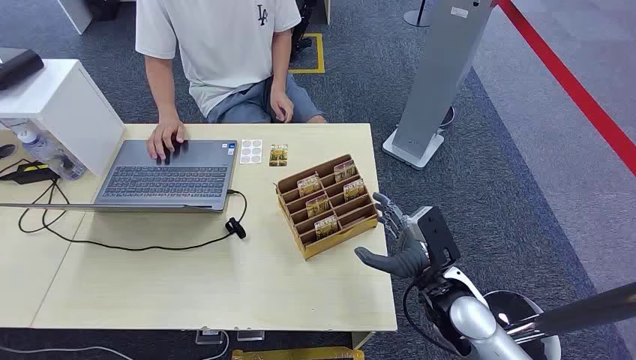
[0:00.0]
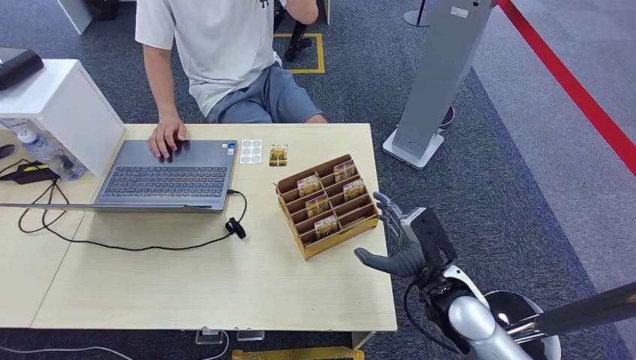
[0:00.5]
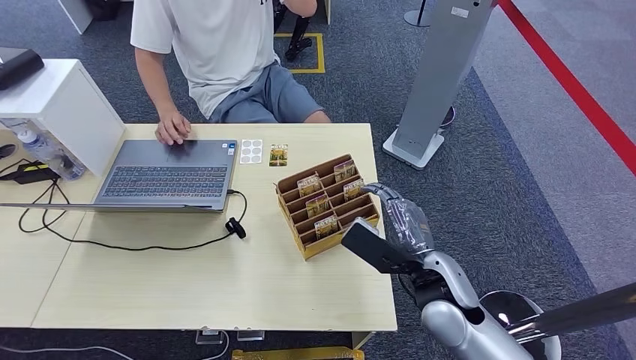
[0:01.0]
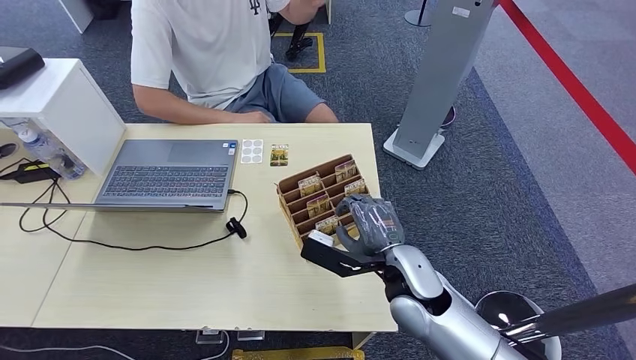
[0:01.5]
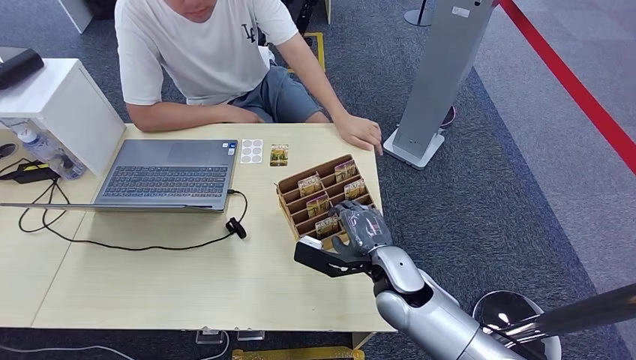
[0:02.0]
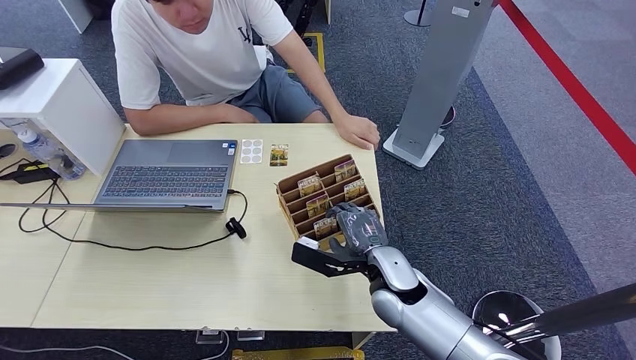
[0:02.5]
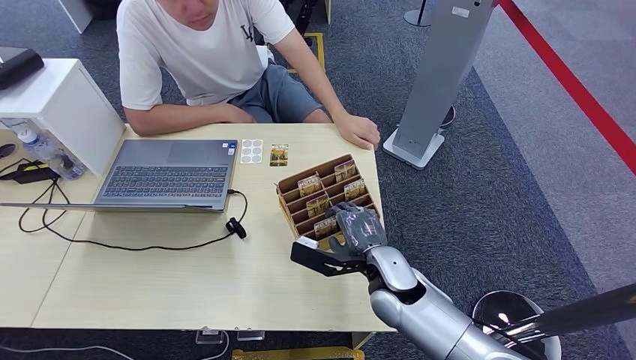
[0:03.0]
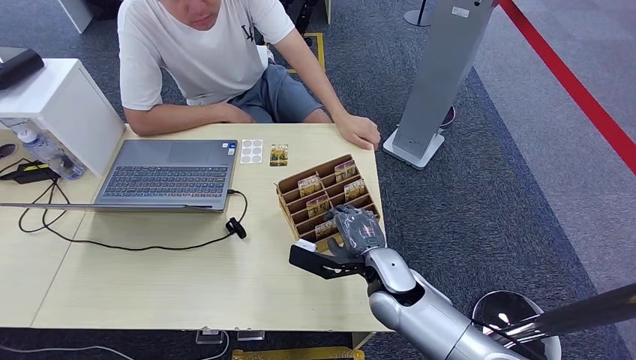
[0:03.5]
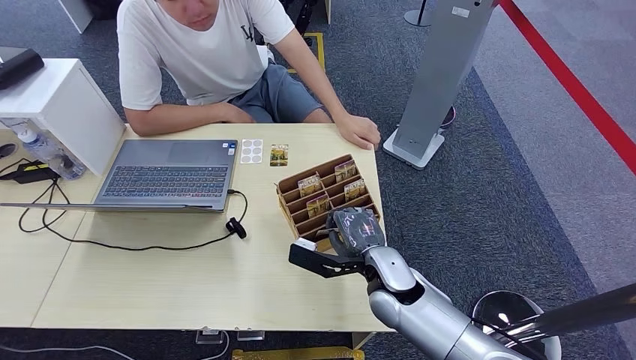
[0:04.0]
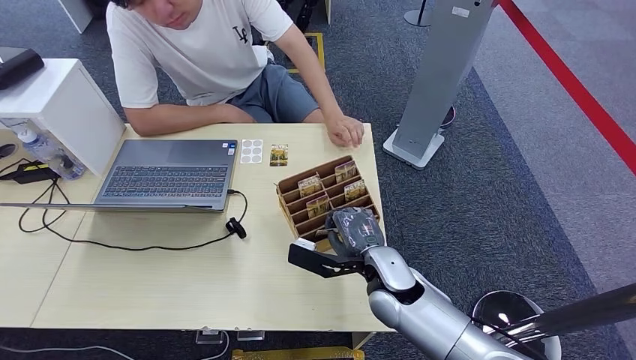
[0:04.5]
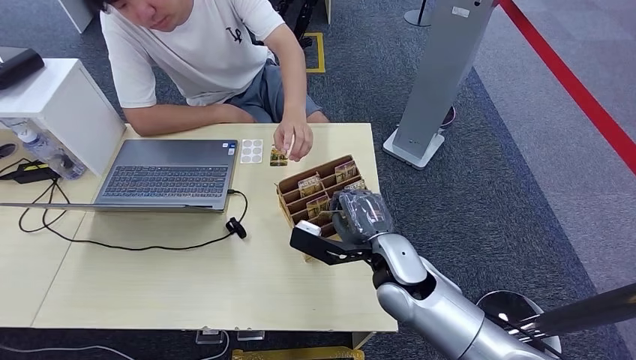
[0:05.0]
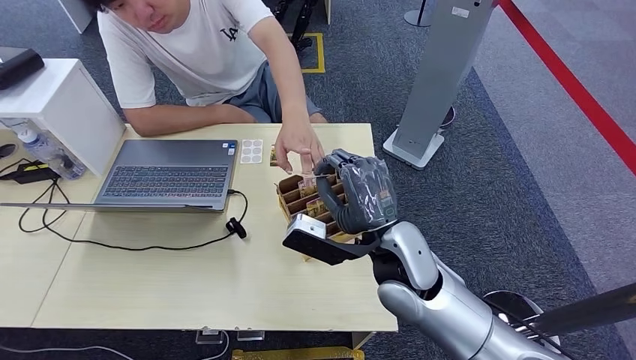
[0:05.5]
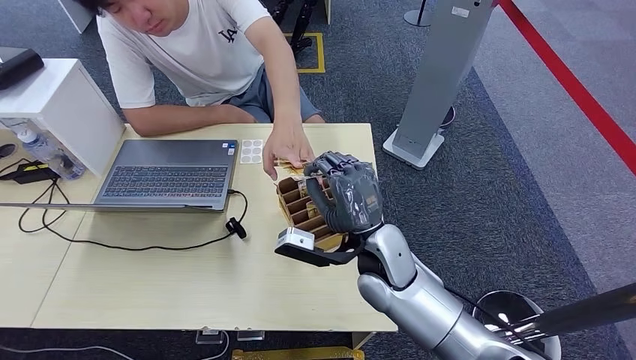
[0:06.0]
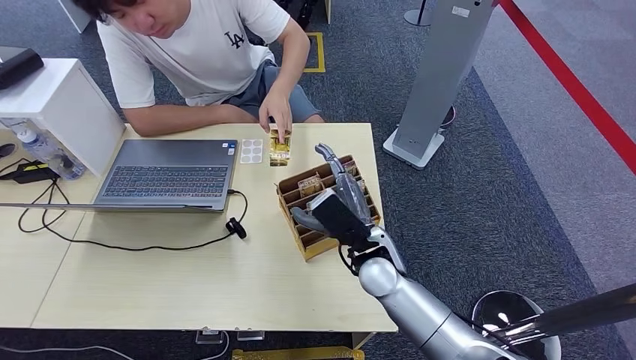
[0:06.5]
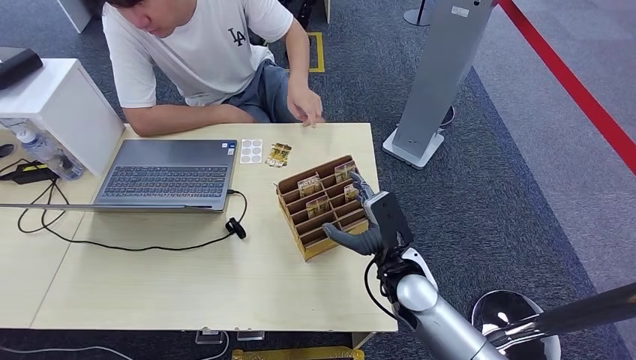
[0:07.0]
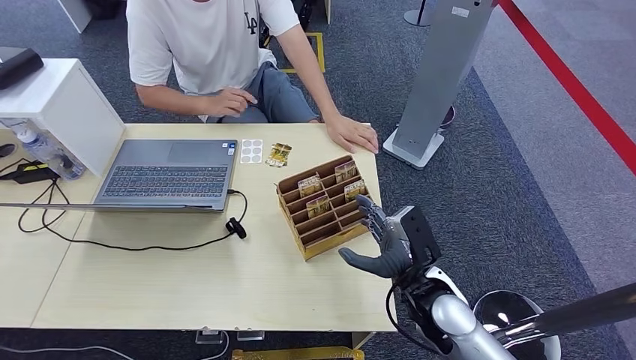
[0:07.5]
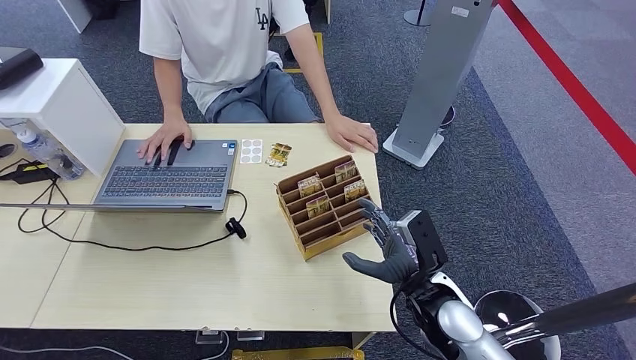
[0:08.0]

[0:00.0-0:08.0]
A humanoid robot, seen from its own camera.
Step, 0:00.0 to 0:05.0: Pick up the room card from the card holder.
Step, 0:05.5 to 0:08.0: Hand the room card to the target.
0:02.0 to 0:04.0: The hands make only small movements.
0:04.0 to 0:06.0: The right hand is displaced upward by roughly 5 cm.

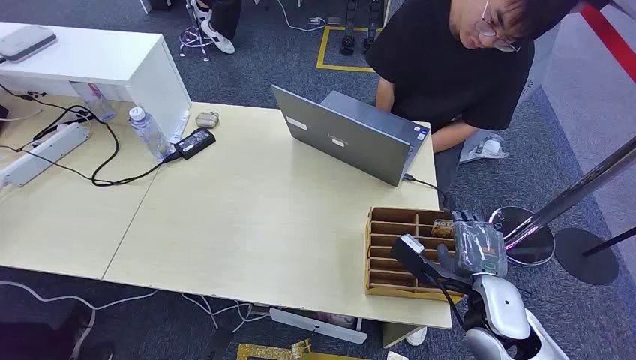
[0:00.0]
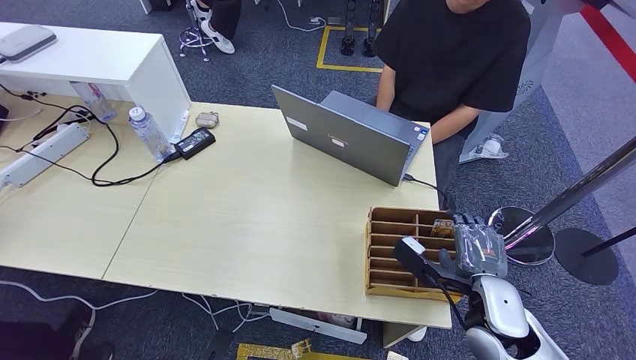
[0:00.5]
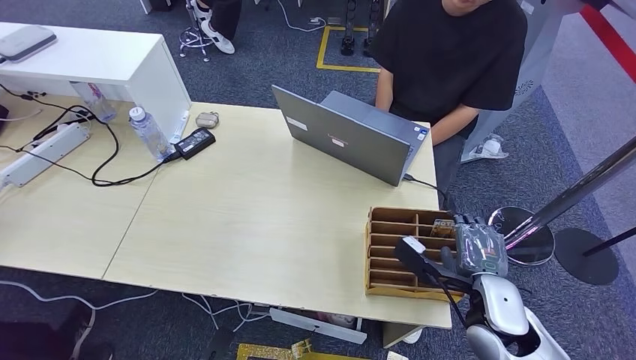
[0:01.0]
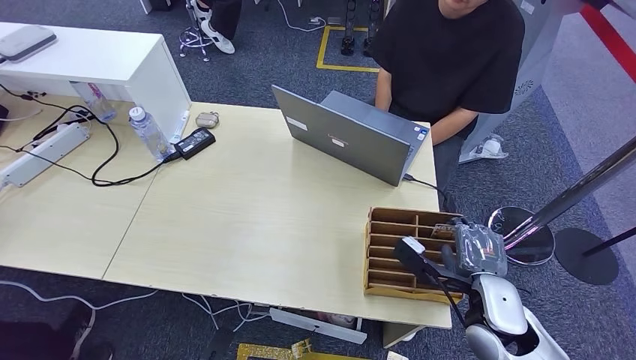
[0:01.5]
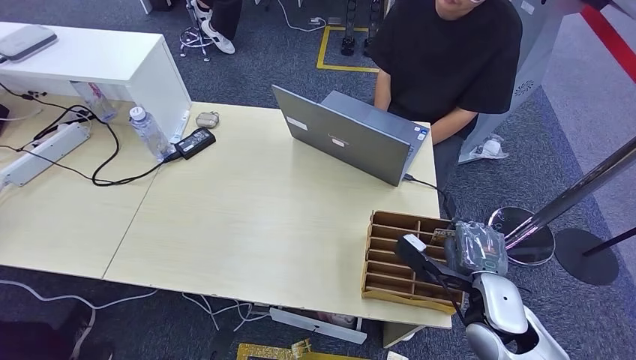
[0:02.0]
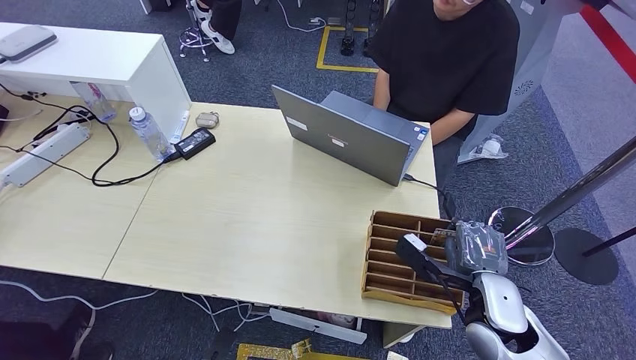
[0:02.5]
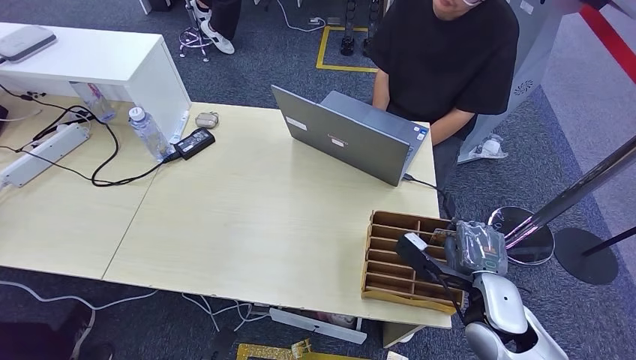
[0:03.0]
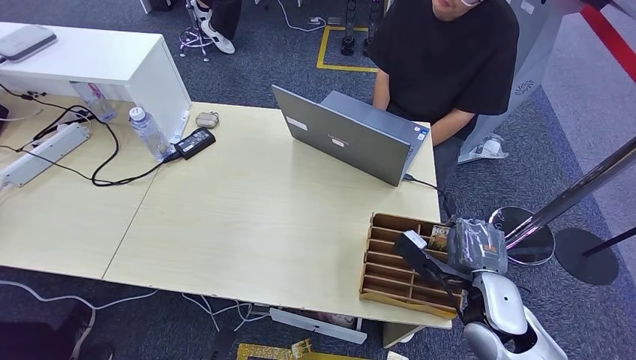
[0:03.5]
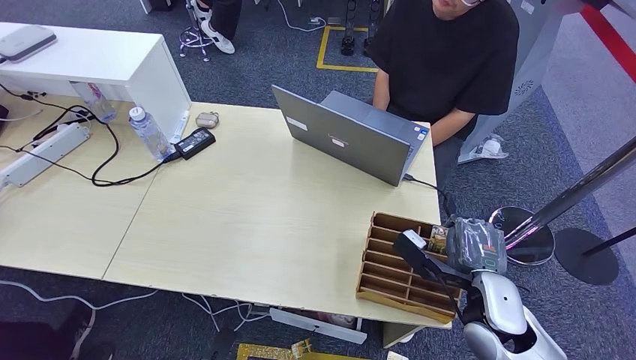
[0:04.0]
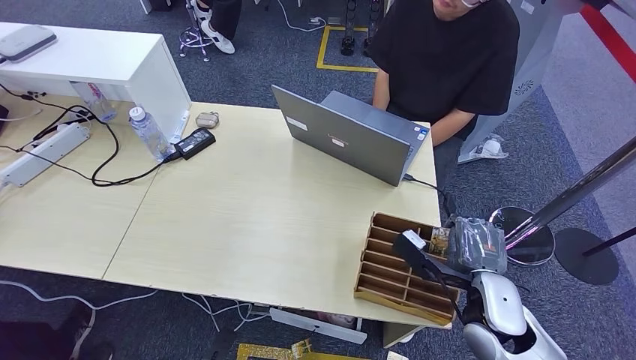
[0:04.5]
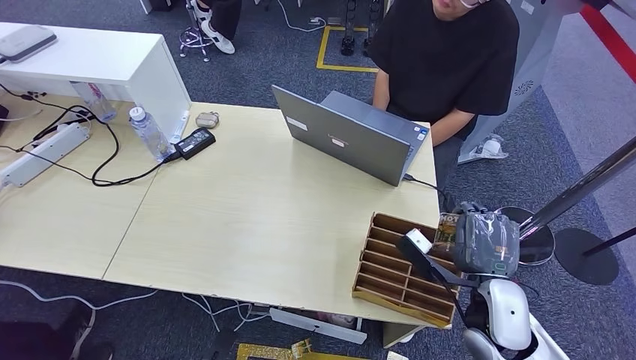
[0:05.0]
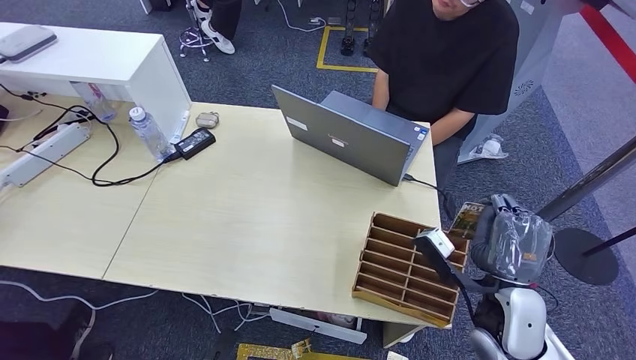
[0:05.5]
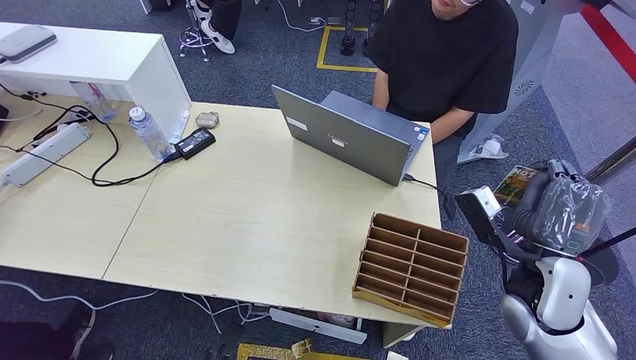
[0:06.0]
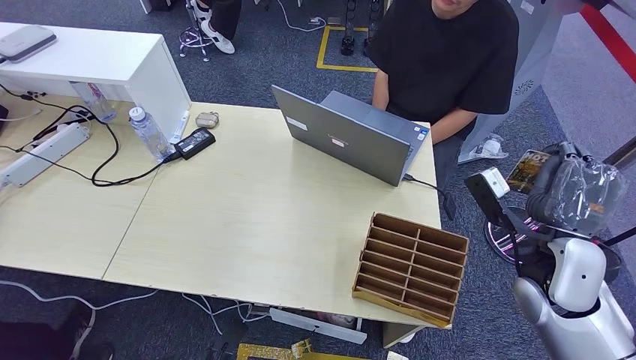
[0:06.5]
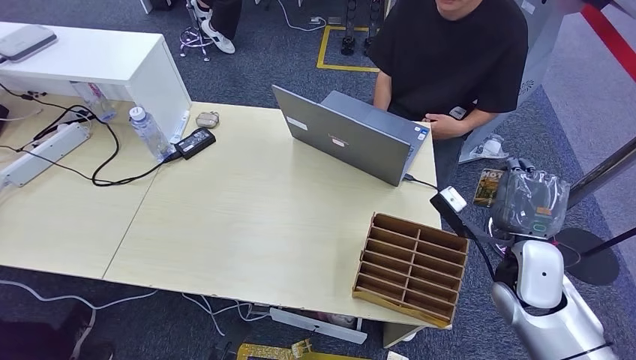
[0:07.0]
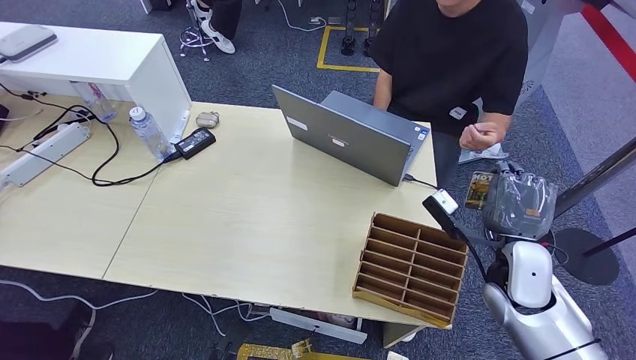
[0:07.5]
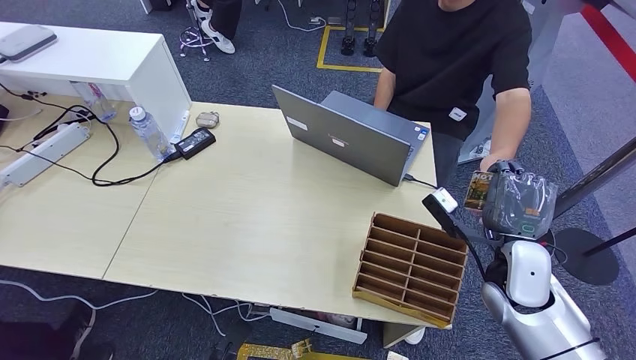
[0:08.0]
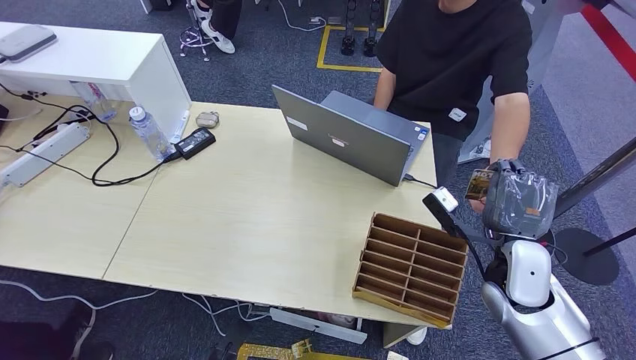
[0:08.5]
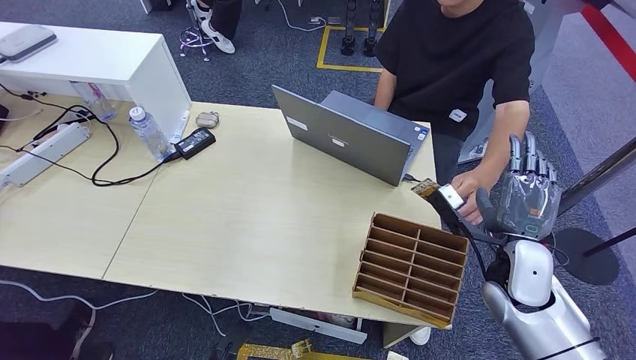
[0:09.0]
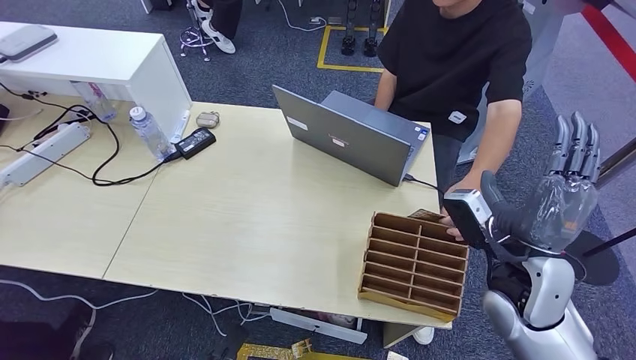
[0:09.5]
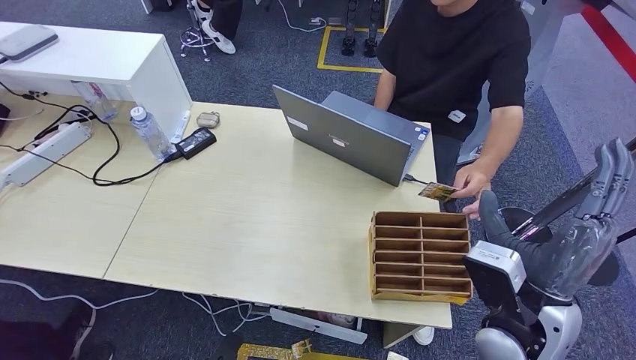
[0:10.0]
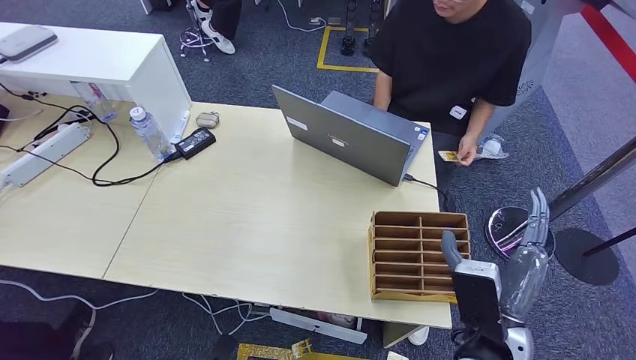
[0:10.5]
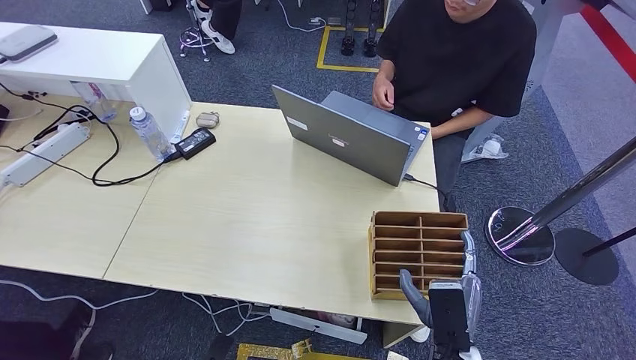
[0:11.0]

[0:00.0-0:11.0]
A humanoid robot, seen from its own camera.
Step, 0:00.0 to 0:04.5: Pick up the room card from the card holder.
Step, 0:05.0 to 0:11.0: Hand the room card to the target.
0:02.0 to 0:03.5: Both hands stay put.
0:05.5 to 0:07.5: The right hand moves forward, about 5 cm.
0:07.5 to 0:09.0: Both hands stay about where they are.
0:09.0 to 0:11.0: The right hand heads backward, to the left and downward, covering roughly 20 cm.
